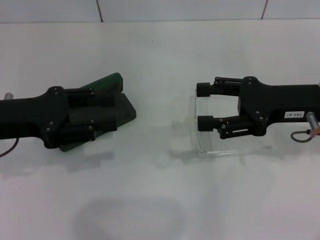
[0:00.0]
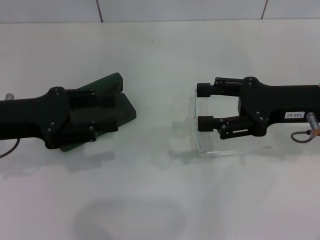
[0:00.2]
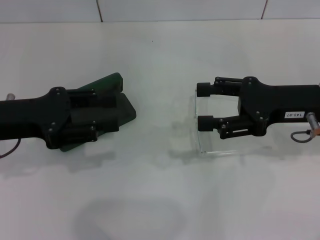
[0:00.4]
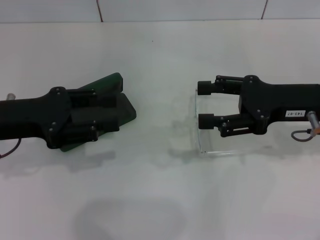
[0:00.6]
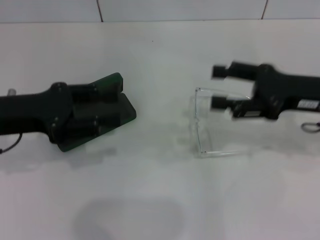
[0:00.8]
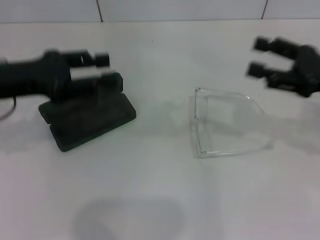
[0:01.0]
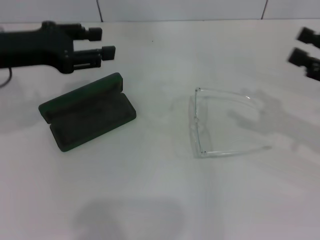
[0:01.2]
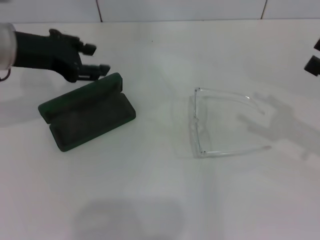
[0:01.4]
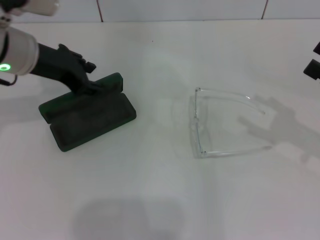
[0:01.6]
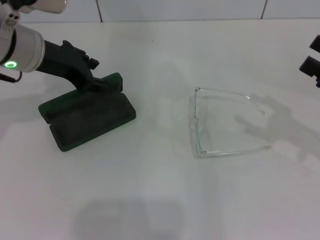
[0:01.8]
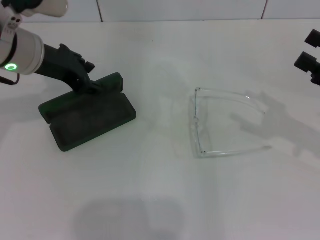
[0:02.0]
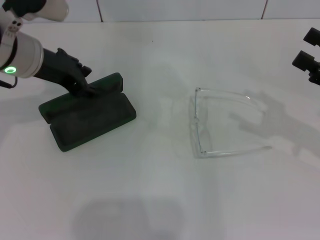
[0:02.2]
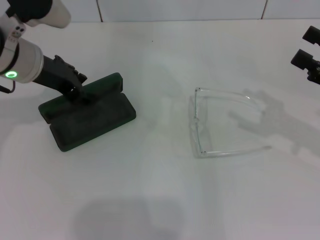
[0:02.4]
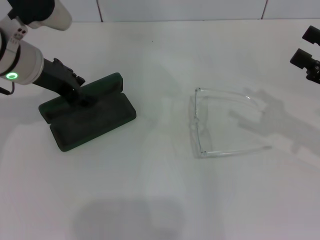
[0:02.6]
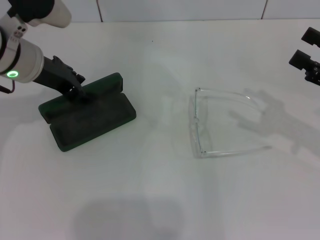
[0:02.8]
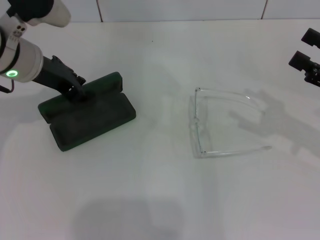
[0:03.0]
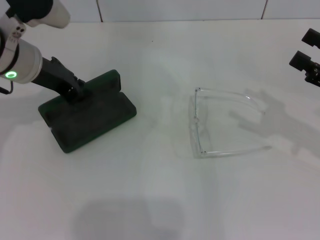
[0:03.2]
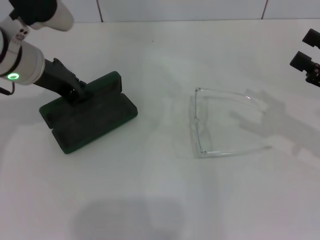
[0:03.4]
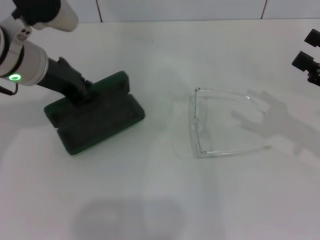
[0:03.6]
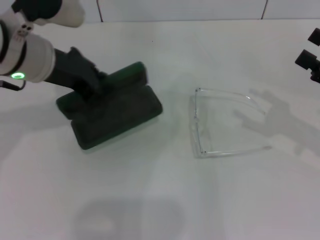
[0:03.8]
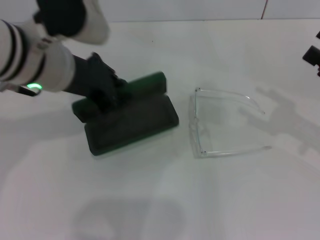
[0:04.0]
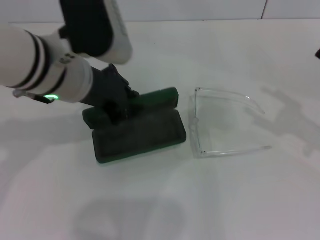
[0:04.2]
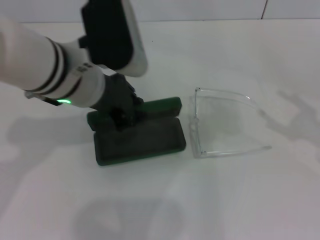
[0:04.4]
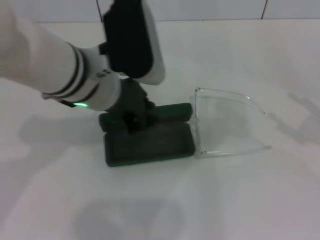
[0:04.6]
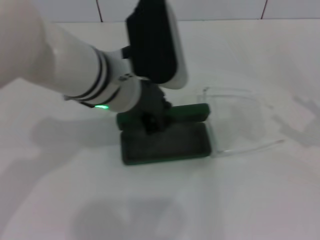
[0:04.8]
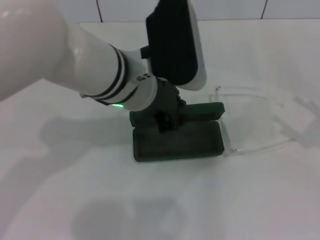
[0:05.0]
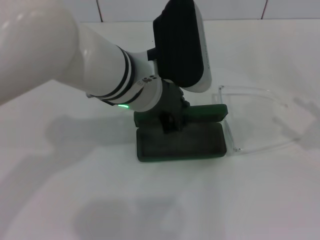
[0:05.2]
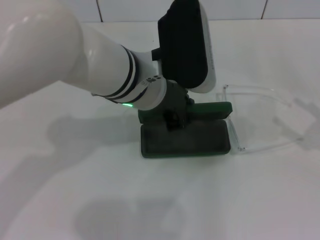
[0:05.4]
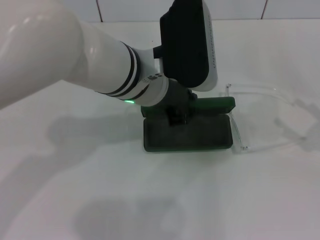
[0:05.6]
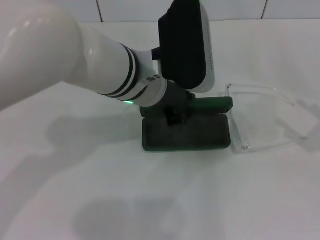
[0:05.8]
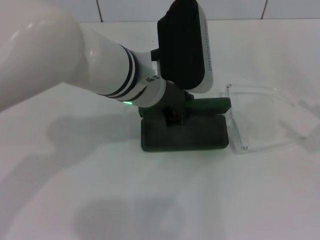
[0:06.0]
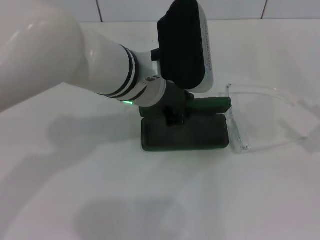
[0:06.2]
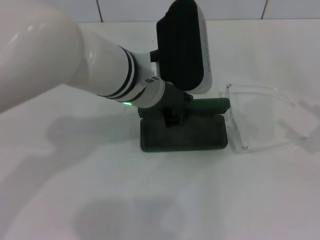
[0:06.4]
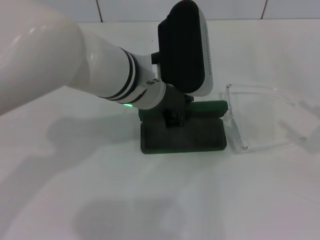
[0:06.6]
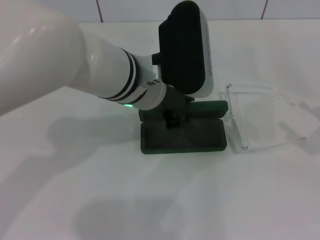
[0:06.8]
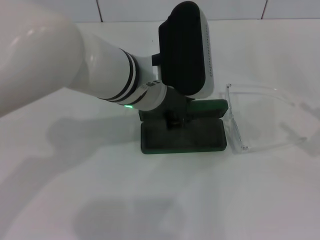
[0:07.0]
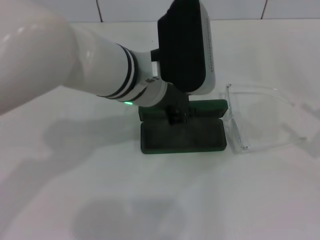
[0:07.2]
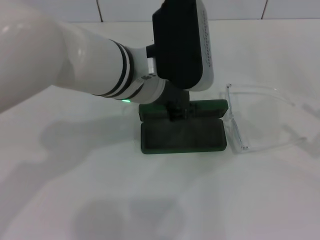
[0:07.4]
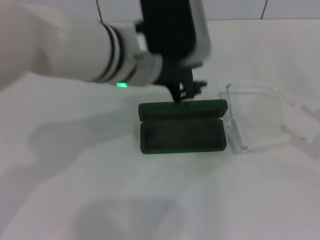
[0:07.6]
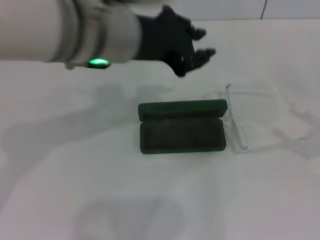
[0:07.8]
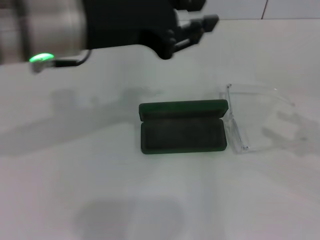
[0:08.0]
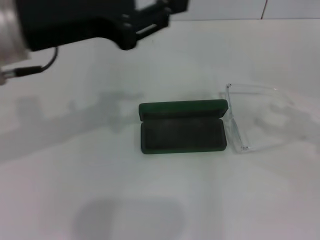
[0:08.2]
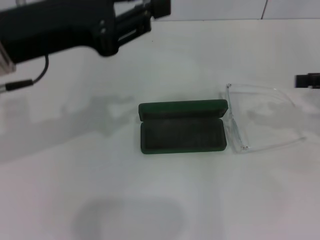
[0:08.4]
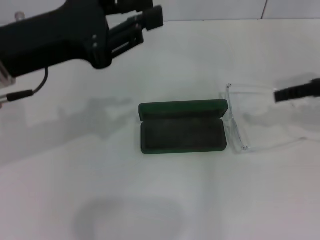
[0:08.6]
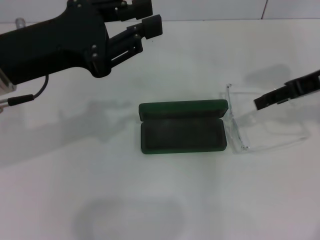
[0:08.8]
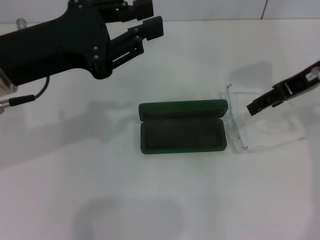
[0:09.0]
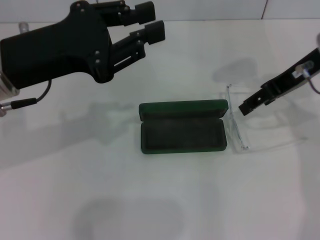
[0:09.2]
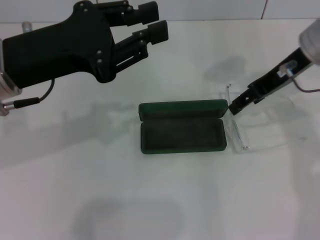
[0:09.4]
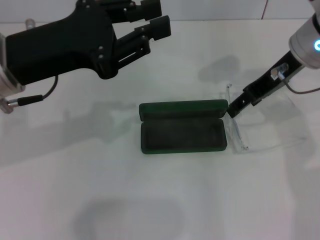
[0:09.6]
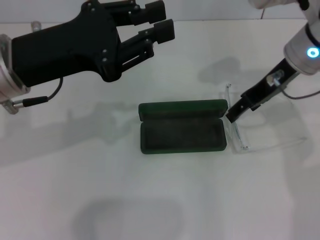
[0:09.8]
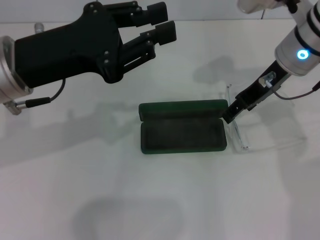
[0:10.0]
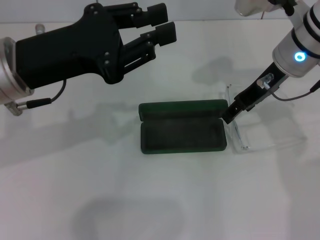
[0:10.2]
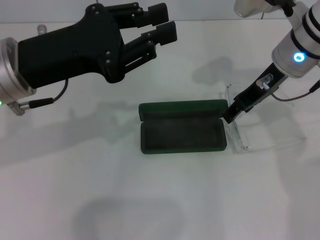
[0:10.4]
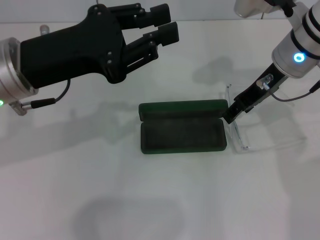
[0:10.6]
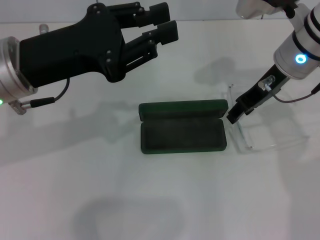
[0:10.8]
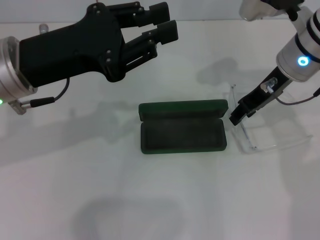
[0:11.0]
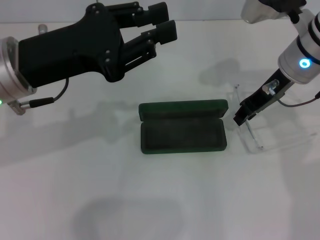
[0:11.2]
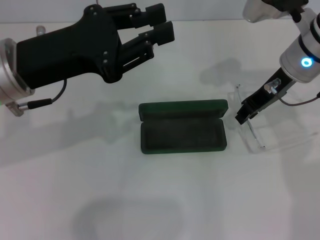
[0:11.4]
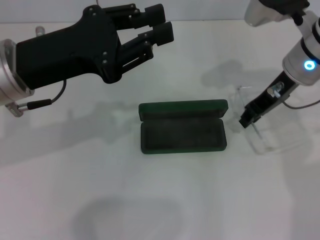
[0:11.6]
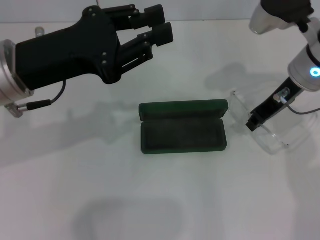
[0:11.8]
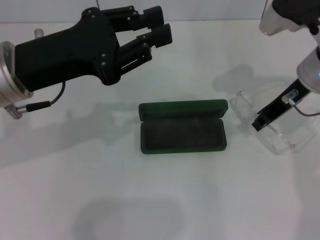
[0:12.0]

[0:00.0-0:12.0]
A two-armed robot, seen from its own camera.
Step, 0:00.0 to 0:03.2: Grab the glasses case with your left hand.
Step, 0:03.4 to 0:06.6: Place the glasses case in the center of the table with your left hand.
Step, 0:06.8 to 0:11.6: Grab the eyeglass frame with your right hand.
0:00.0 to 0:01.6: The right gripper heads to the right and backward, covering roughly 10 cm; the left gripper is displaced forward and to the right by roughly 10 cm.
0:01.6 to 0:03.0: There are only small adjustments of the grippers.
0:03.0 to 0:04.4: The left gripper is displaced to the right and backward by roughly 10 cm, and closes.
0:04.4 to 0:06.0: The left gripper heads to the right, covering about 5 cm.
0:06.0 to 0:07.6: The grippers stay close to where they were, moving slightly.
0:07.6 to 0:09.0: The left gripper is displaced to the left by about 15 cm, while the right gripper moves forward, to the left and upward, roughly 25 cm.
0:09.0 to 0:10.4: The right gripper moves to the left, some 5 cm.
0:10.4 to 0:12.0: The right gripper closes its fingers.

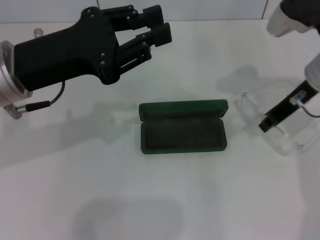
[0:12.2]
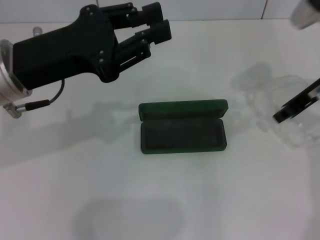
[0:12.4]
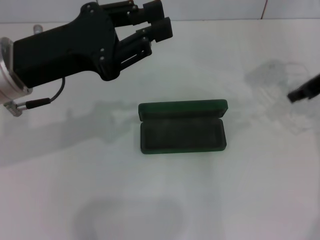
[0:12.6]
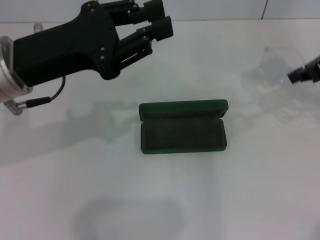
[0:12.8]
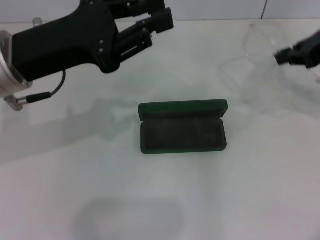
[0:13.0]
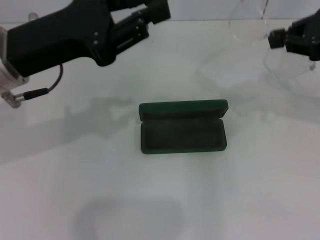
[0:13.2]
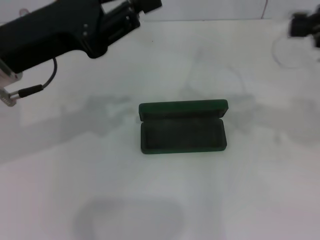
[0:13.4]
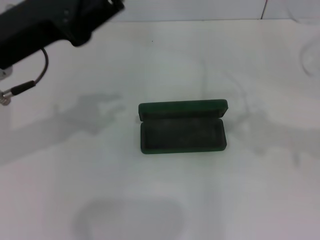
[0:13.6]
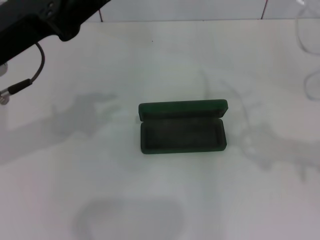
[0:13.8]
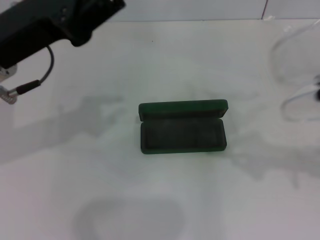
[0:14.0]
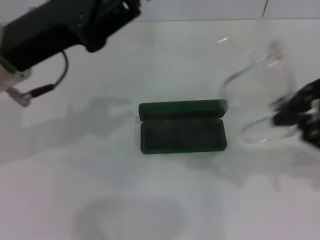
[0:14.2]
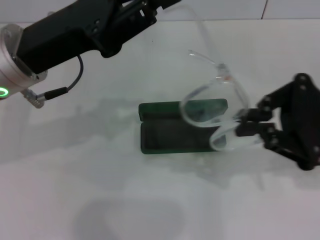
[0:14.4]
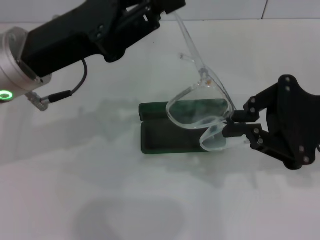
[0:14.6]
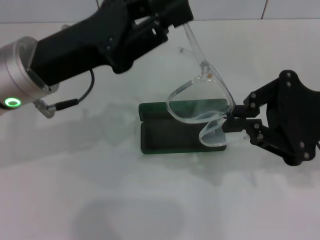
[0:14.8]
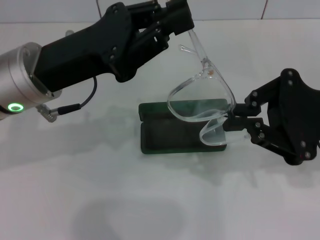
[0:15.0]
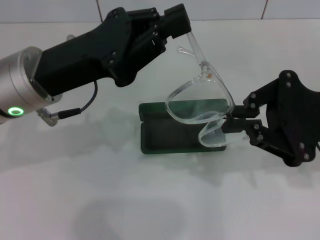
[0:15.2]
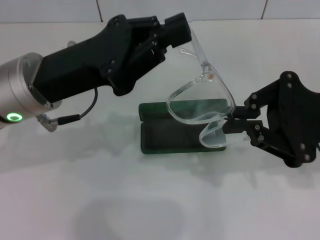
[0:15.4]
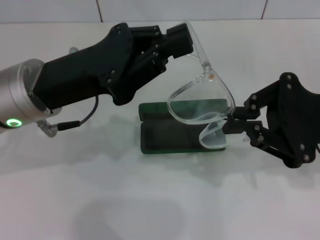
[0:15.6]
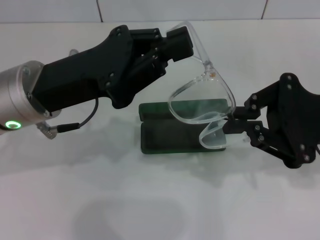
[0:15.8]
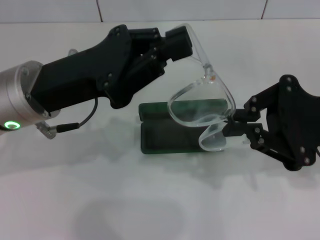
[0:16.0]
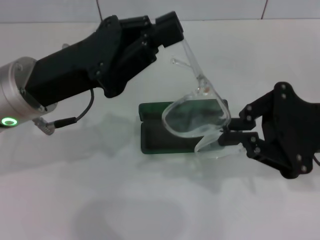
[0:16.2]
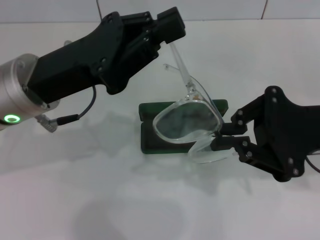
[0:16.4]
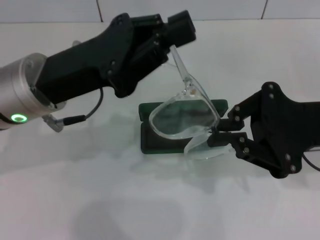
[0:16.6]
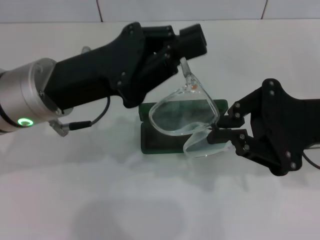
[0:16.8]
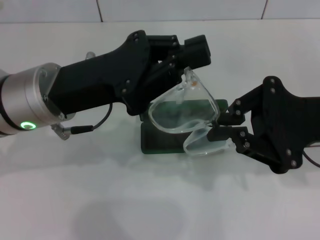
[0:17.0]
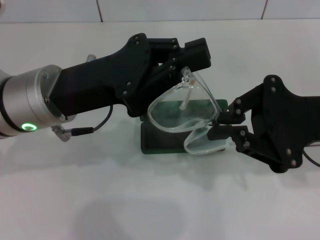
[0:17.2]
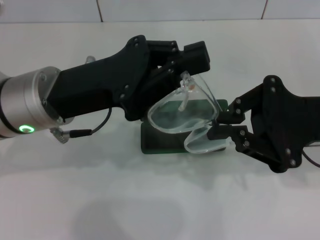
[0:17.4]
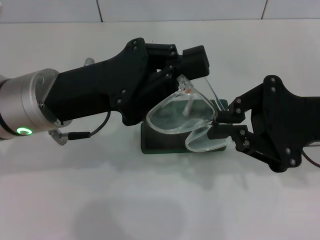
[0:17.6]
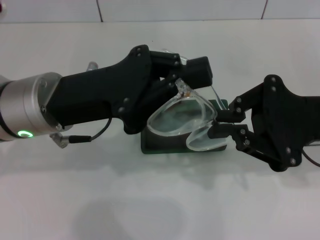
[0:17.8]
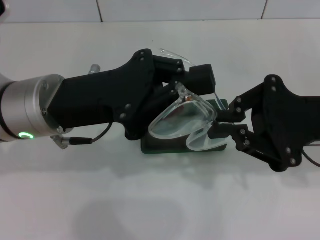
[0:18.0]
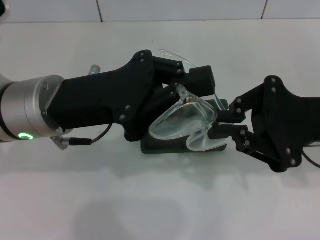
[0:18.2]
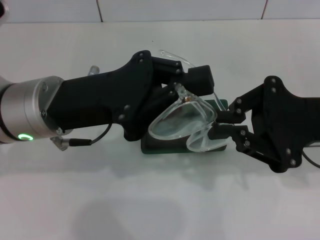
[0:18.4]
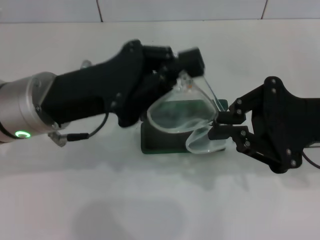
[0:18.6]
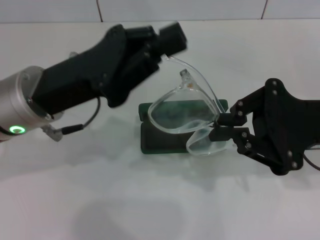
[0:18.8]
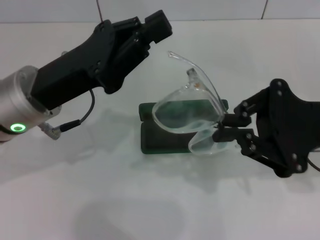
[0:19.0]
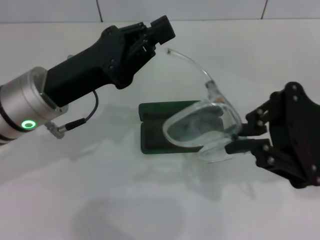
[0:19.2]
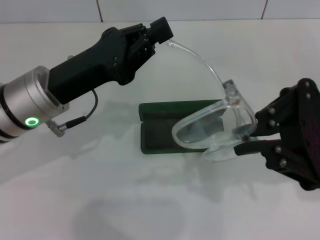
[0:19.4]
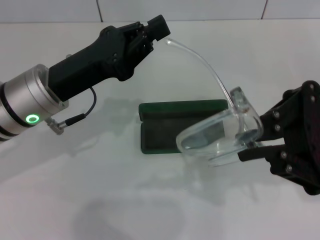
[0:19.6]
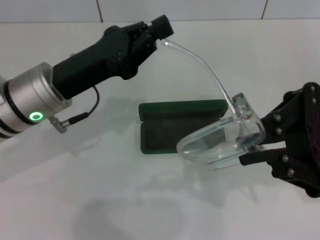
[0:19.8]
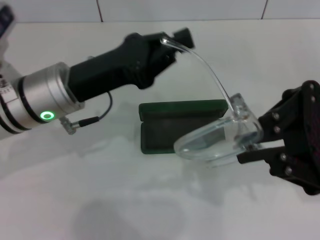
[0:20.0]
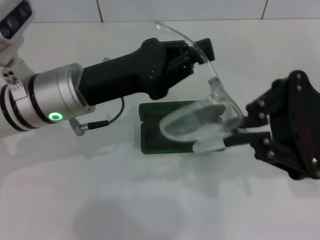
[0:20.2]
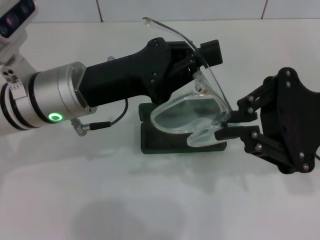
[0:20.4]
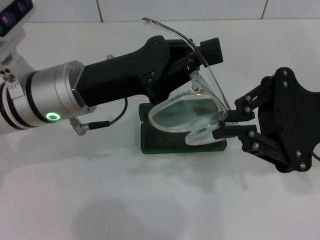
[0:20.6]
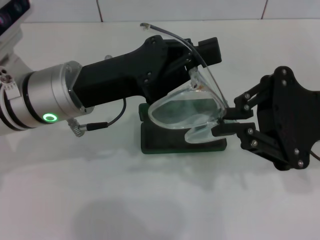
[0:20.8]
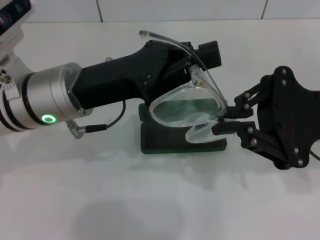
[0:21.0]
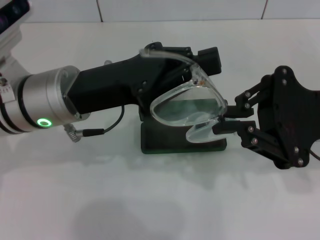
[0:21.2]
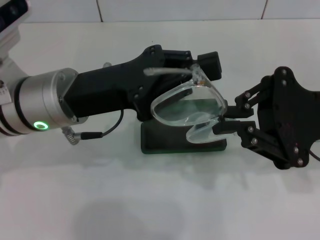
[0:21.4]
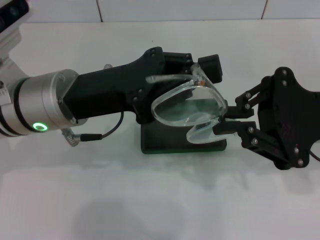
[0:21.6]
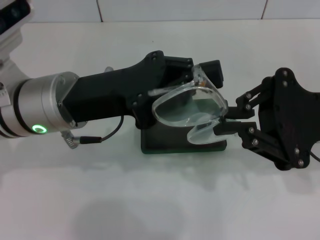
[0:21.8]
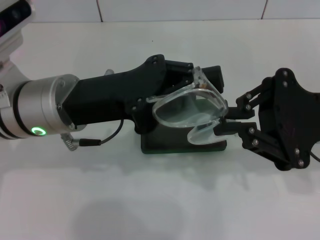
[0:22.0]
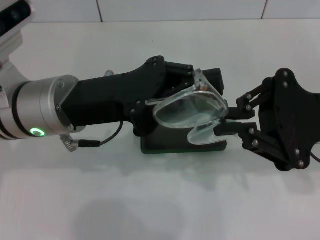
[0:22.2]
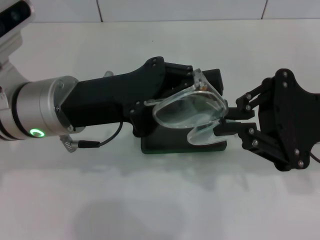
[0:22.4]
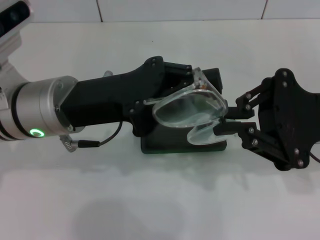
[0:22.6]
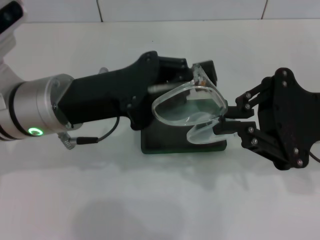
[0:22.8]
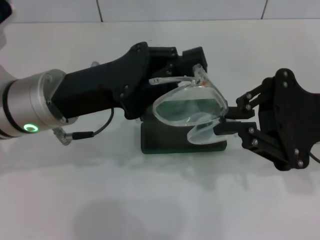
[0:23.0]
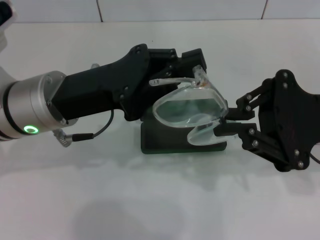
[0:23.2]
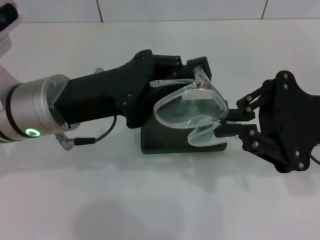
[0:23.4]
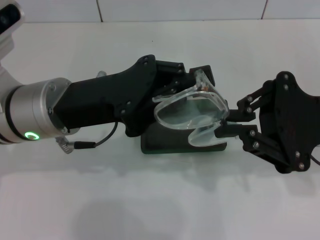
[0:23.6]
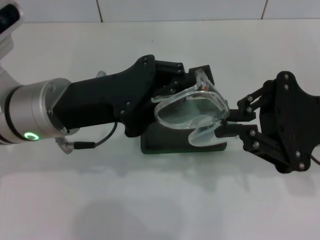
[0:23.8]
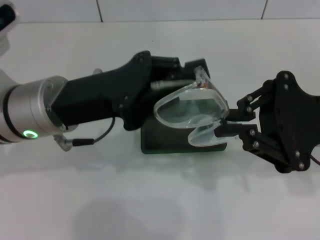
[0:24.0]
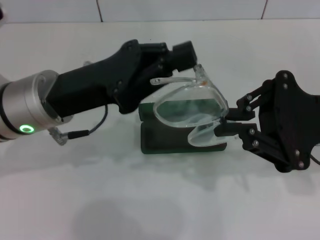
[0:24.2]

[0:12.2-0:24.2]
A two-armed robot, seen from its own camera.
Step, 0:12.2 to 0:22.6: Fold the frame with your left hand.
0:12.2 to 0:13.8: The right gripper travels backward and to the right by roughly 20 cm.
0:13.8 to 0:15.2: The left gripper shifts by roughly 5 cm, while the right gripper moves to the left, roughly 10 cm.
0:15.2 to 0:16.6: The grippers move only a little.
0:21.2 to 0:24.2: The grippers stay close to where they were, moving slightly.
